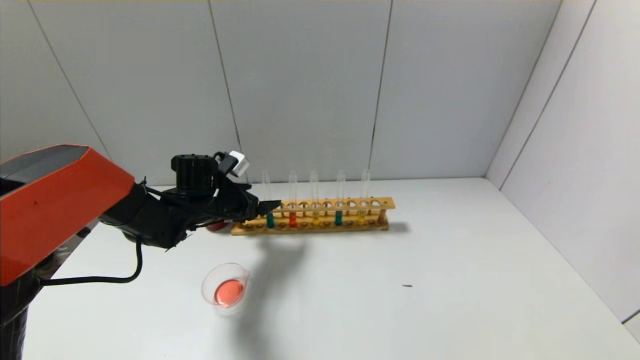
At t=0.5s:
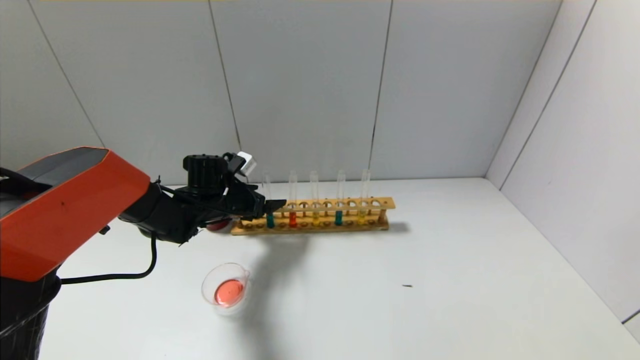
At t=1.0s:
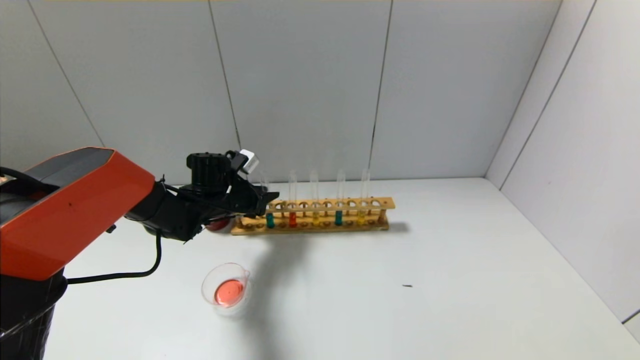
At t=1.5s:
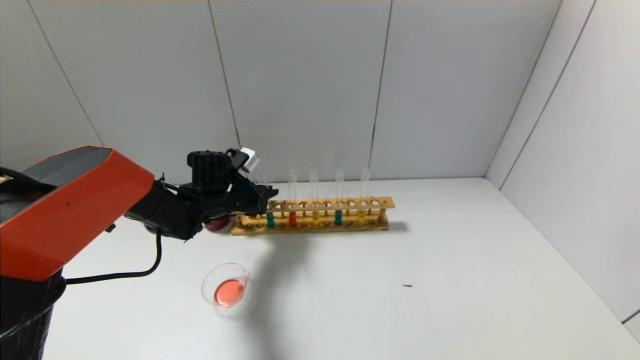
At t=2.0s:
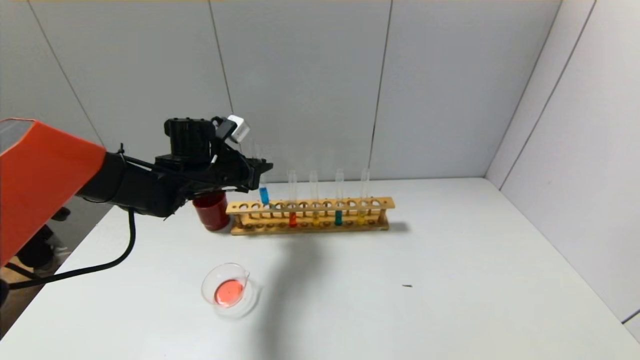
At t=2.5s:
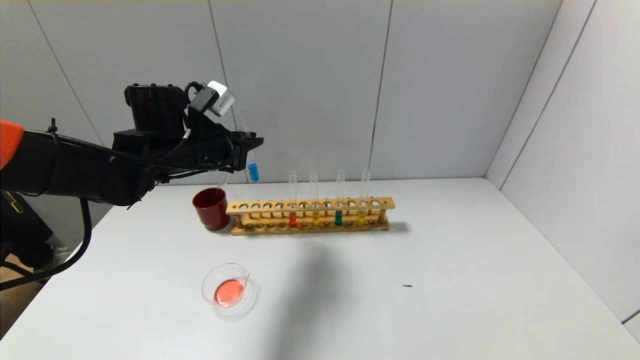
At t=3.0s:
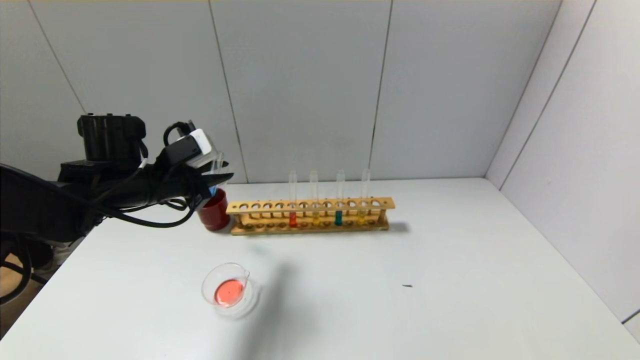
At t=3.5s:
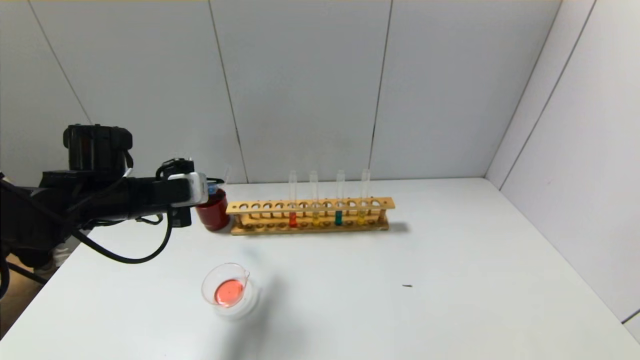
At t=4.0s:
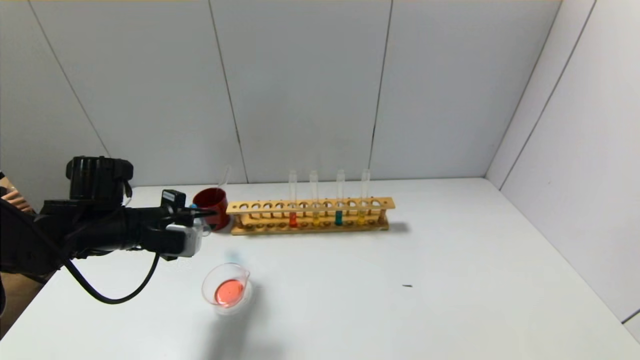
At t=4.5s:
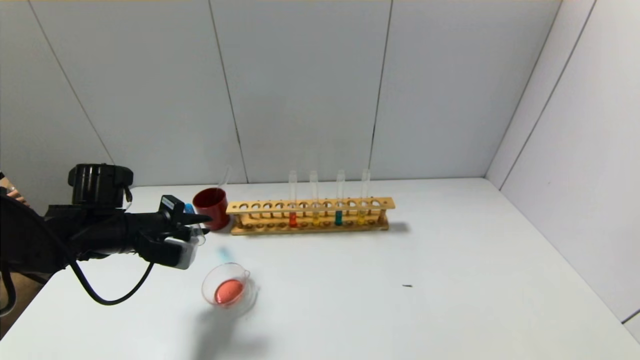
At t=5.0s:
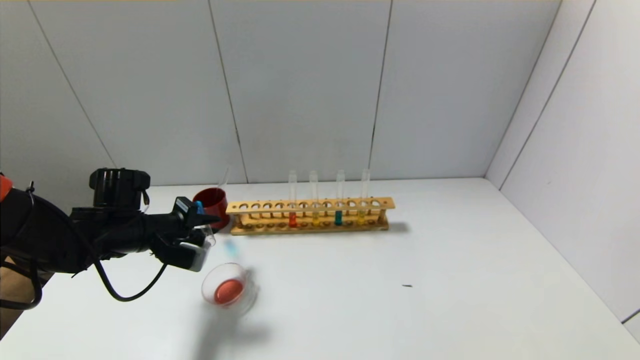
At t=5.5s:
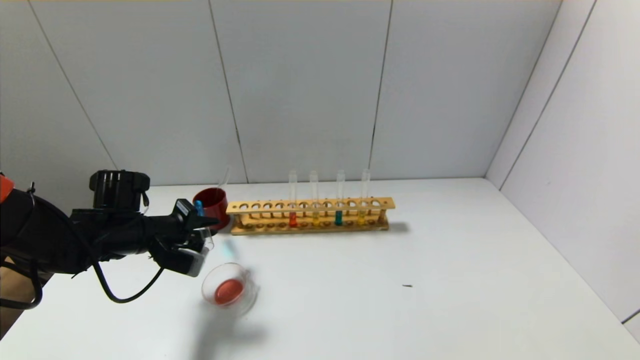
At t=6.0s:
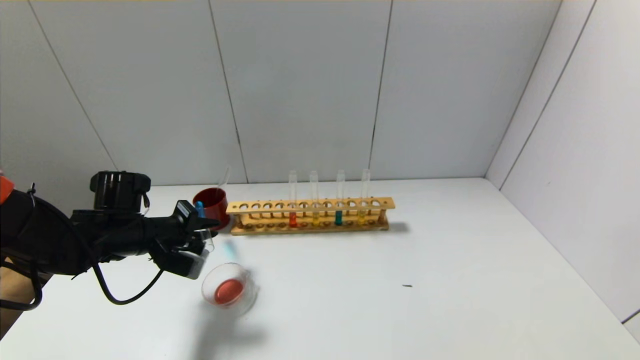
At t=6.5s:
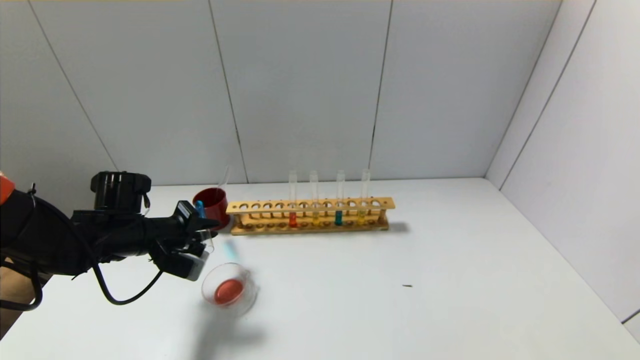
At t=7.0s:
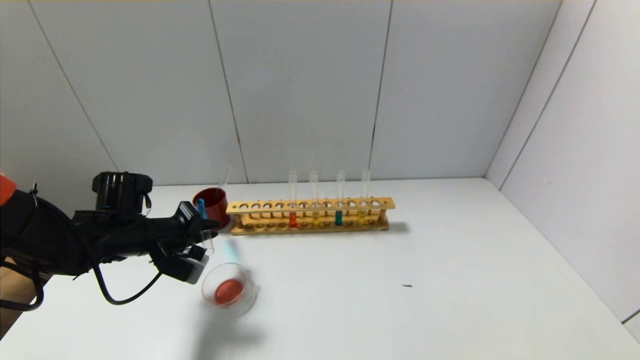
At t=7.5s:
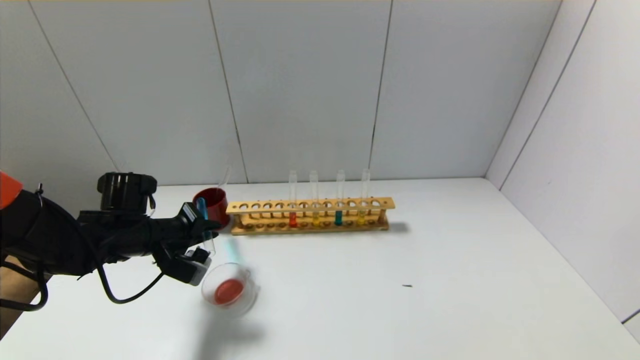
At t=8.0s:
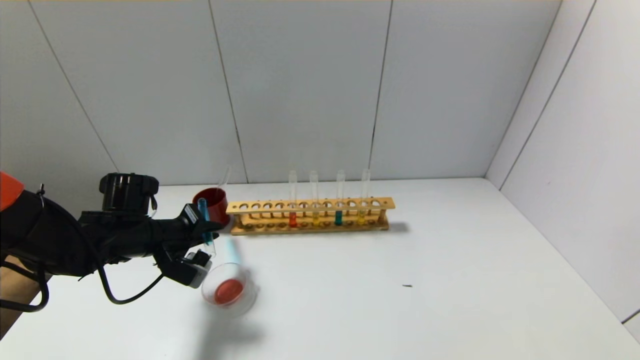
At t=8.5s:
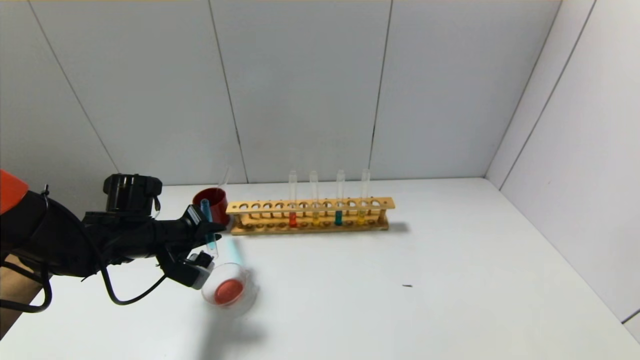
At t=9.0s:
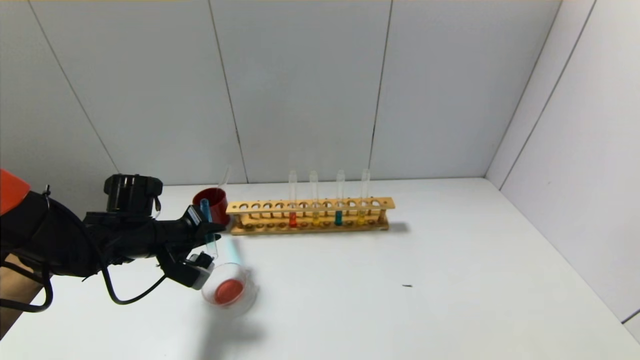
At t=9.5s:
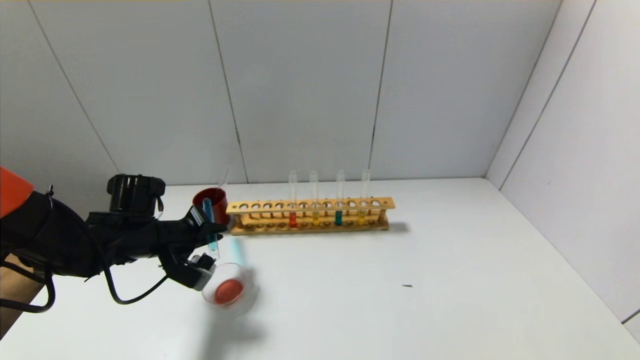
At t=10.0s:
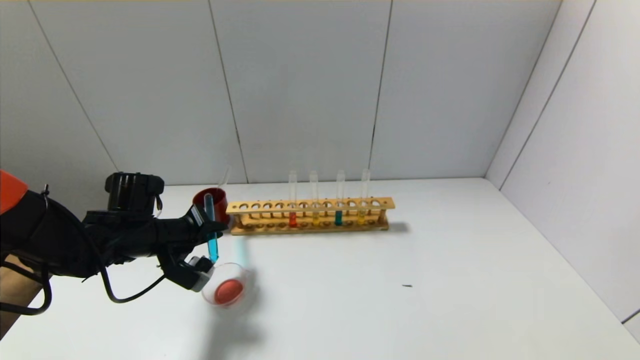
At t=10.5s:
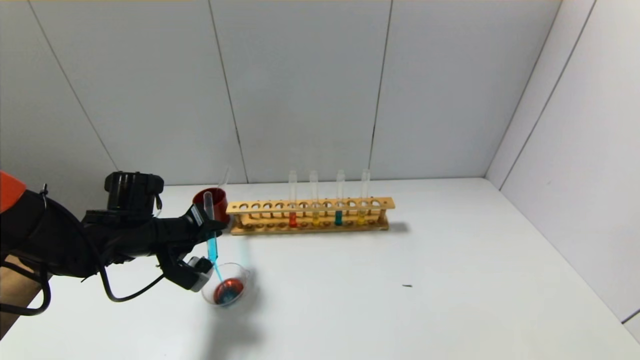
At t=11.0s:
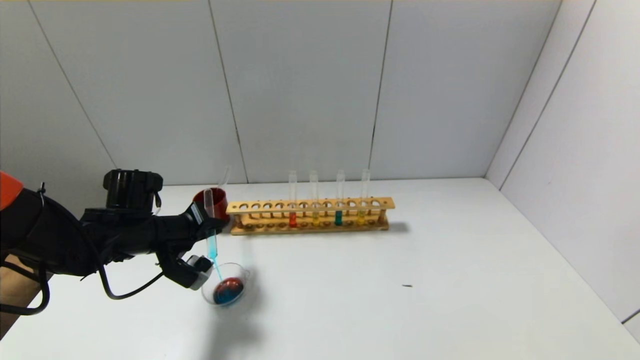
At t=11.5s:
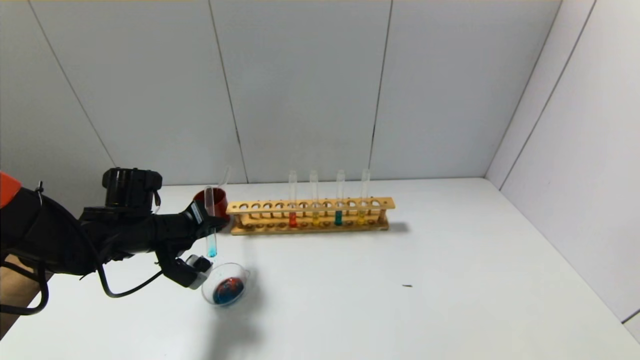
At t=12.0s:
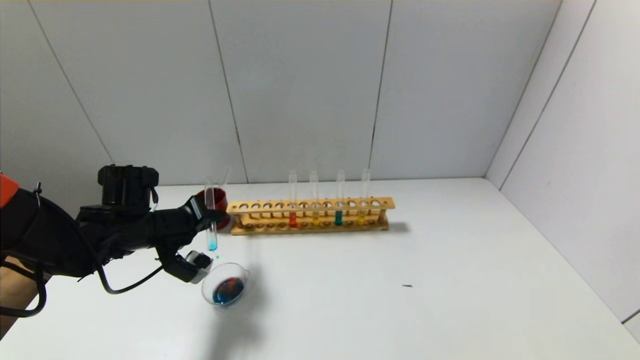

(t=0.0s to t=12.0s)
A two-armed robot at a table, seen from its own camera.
t=0.0s - t=2.0s: The left gripper is displaced upward by some 5 cm, and closes up.
t=2.0s - t=4.0s: The left gripper travels backward and to the left by approximately 15 cm.
t=4.0s - t=6.0s: The grippers stay close to where they were, moving slightly.
t=6.0s - t=10.0s: The grippers move only a little.
t=10.0s - t=12.0s: The grippers move only a little.

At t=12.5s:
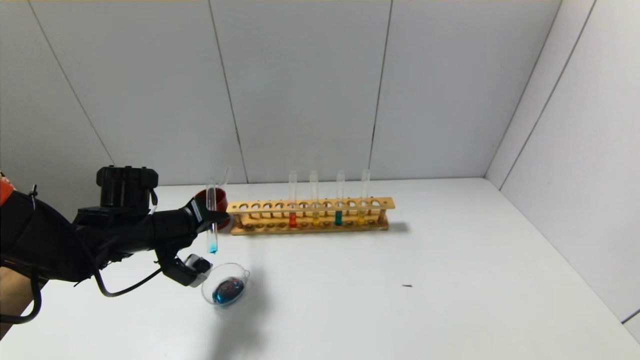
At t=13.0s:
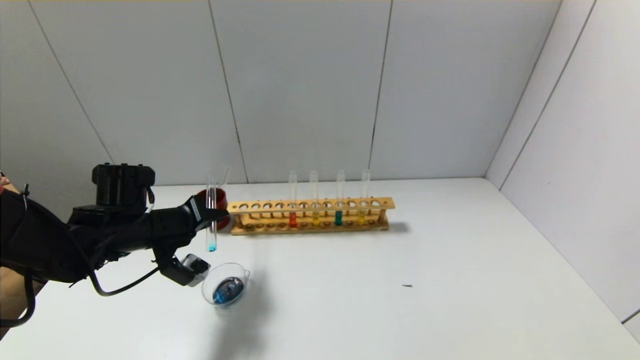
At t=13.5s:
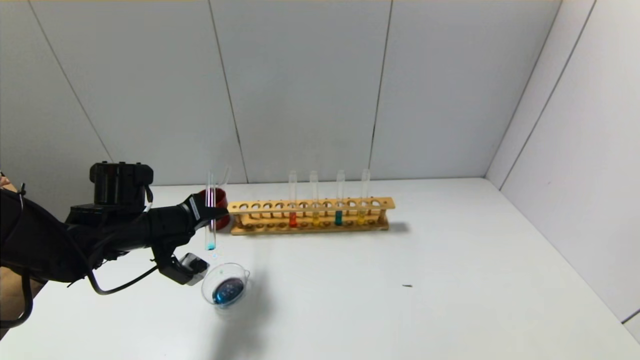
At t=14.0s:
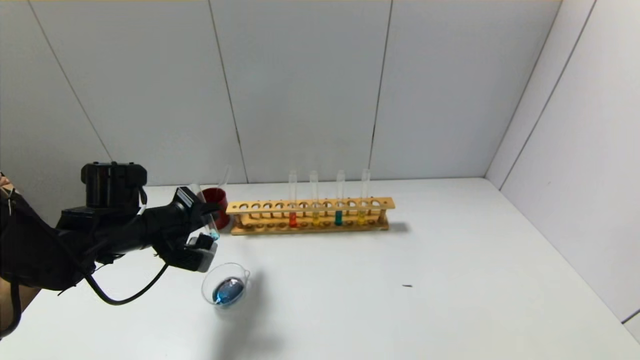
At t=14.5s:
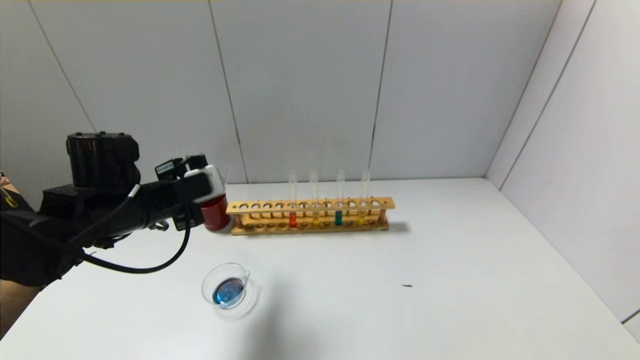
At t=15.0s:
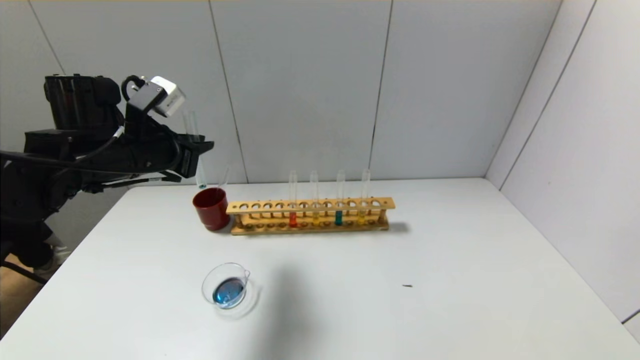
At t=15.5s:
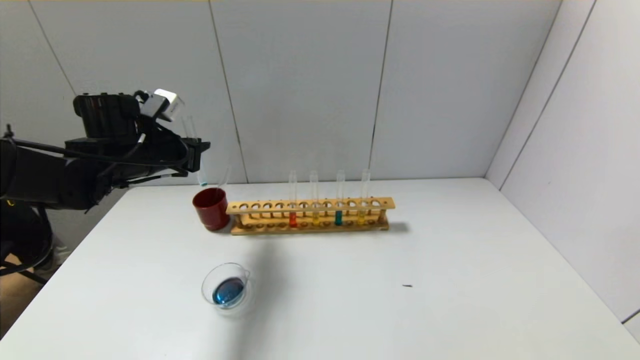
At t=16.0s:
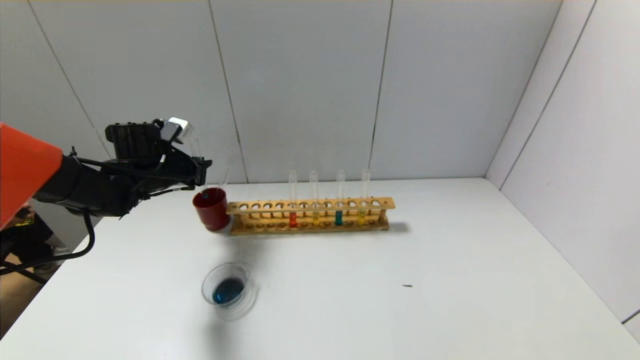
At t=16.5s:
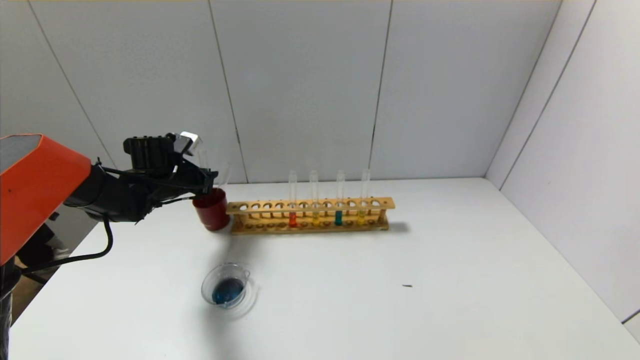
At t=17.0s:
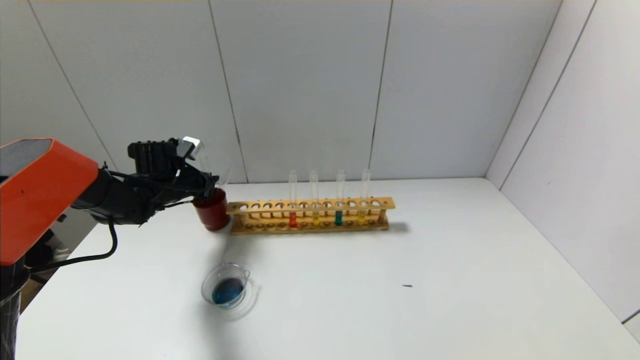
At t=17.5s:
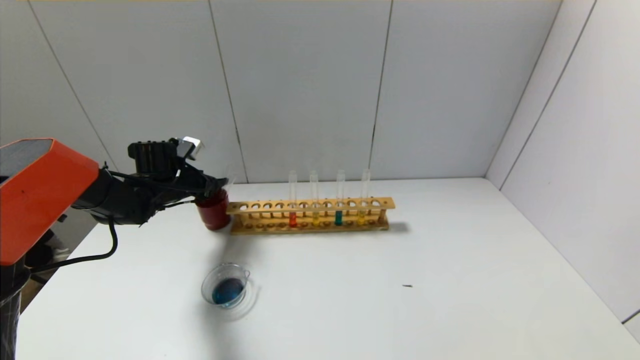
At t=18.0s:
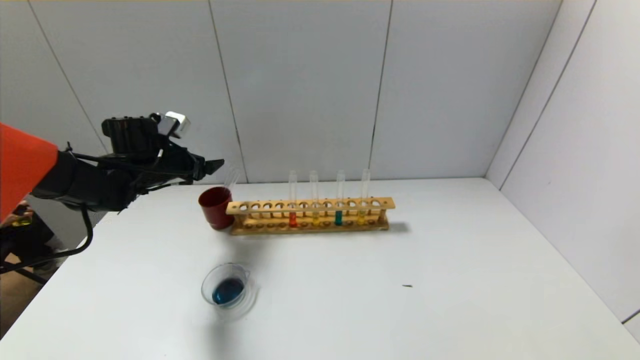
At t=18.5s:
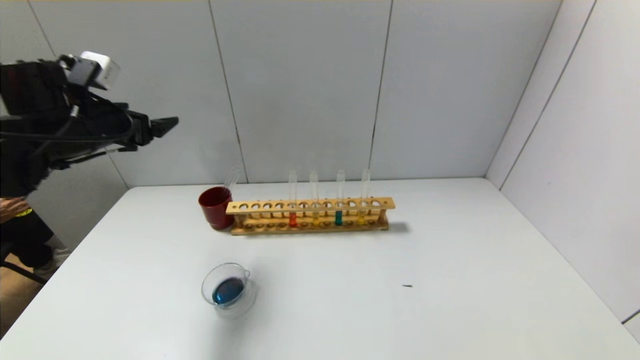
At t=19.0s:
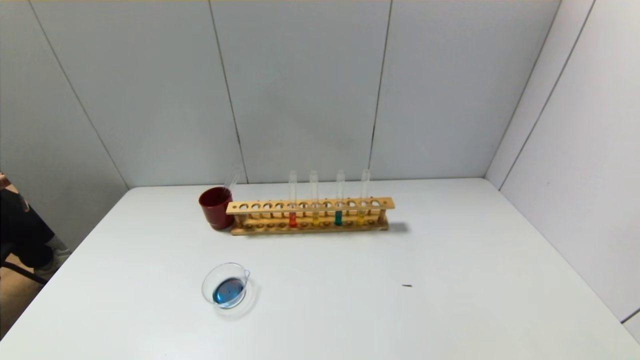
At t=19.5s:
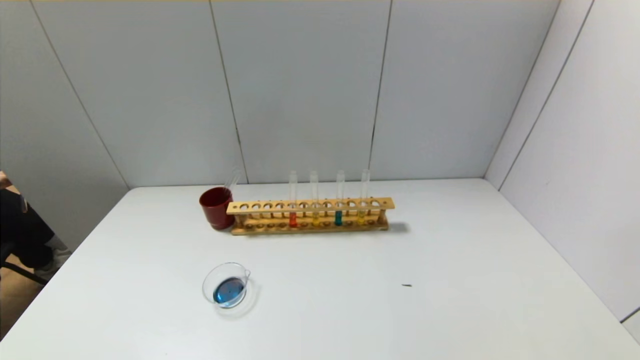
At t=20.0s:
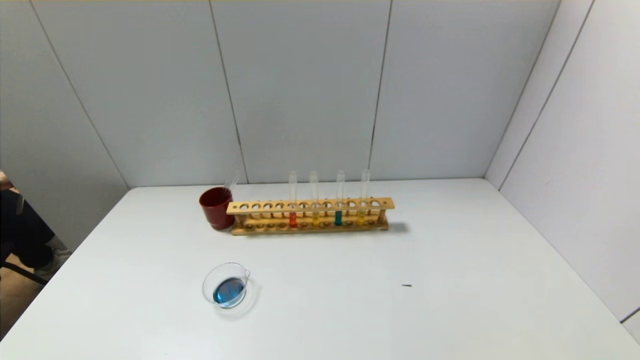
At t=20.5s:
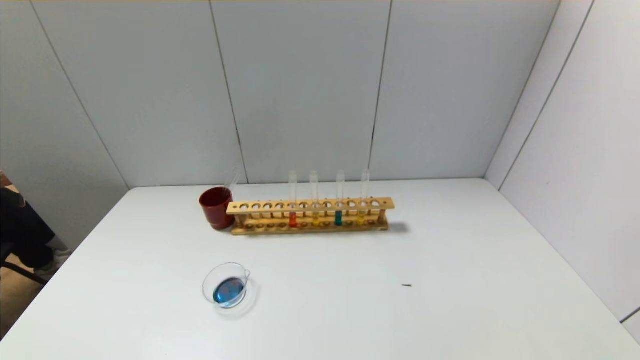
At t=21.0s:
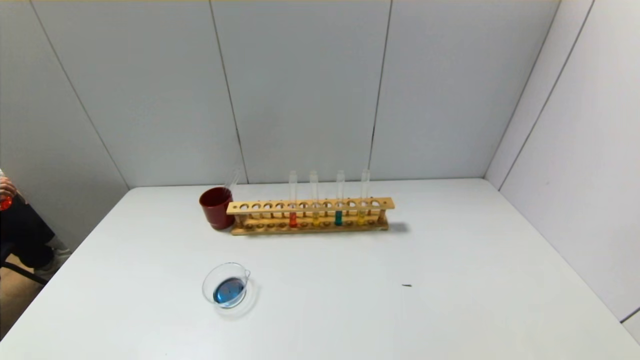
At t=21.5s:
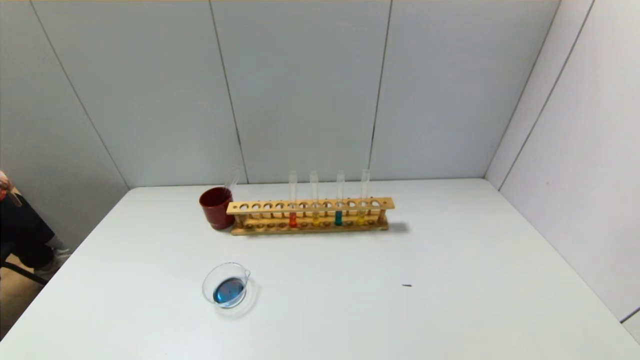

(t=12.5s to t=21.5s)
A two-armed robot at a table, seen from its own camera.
Step, t=14.5s - t=17.0s: Place the test tube into the brown cup with the left gripper.
t=12.5s - t=14.5s: The left gripper moves upward, approximately 5 cm.
t=14.5s - t=17.0s: The left gripper heads forward and downward, covering approximately 20 cm.
t=17.0s - t=19.5s: The left gripper heads backward, covering about 50 cm, and opens up.
